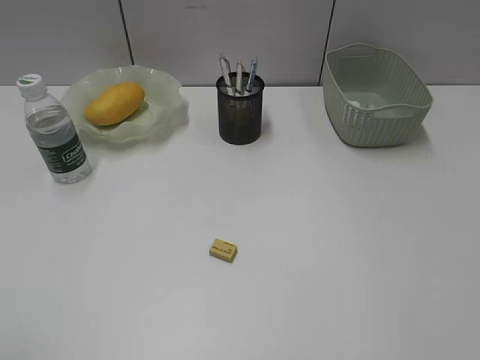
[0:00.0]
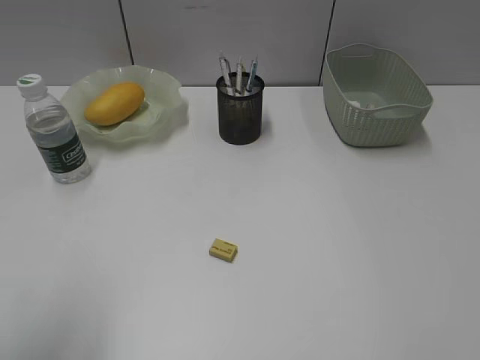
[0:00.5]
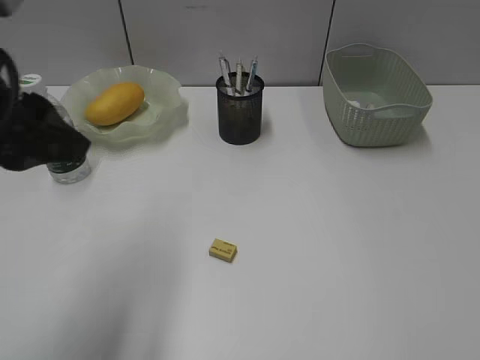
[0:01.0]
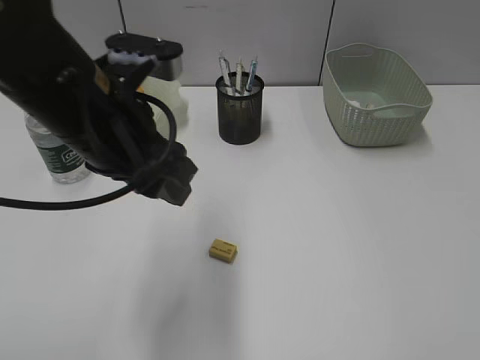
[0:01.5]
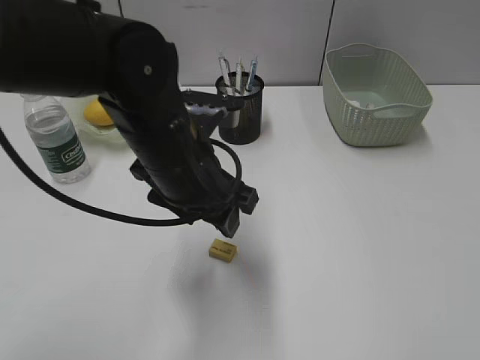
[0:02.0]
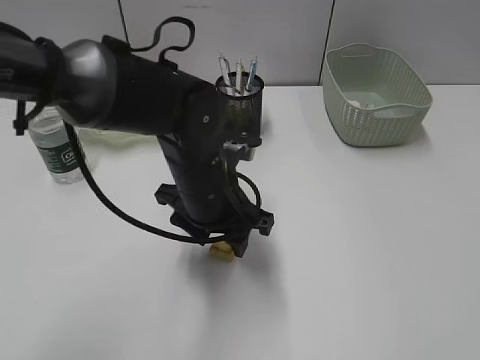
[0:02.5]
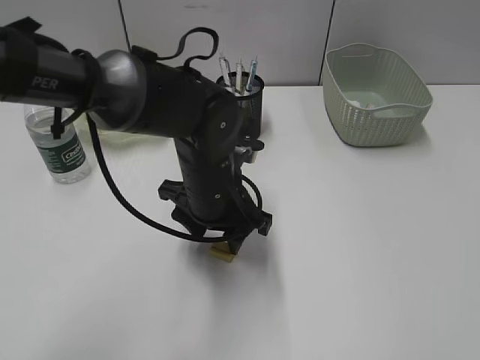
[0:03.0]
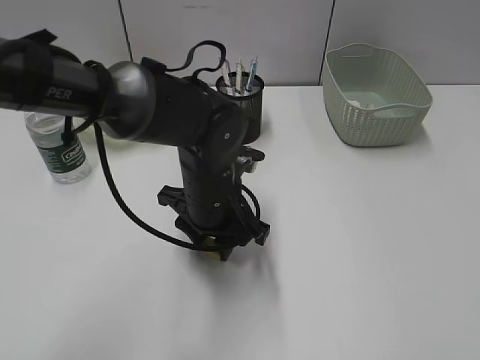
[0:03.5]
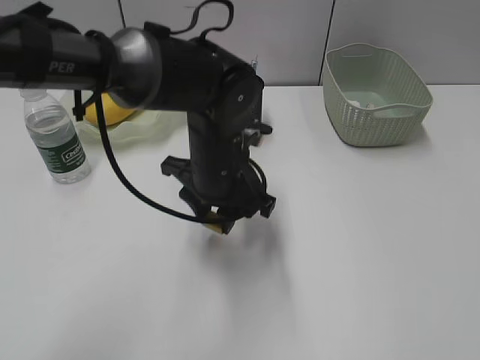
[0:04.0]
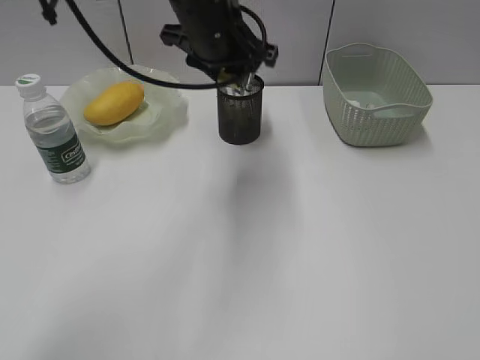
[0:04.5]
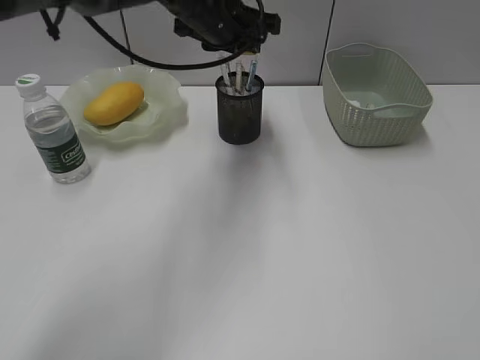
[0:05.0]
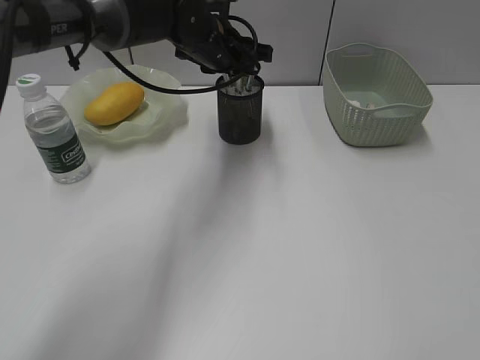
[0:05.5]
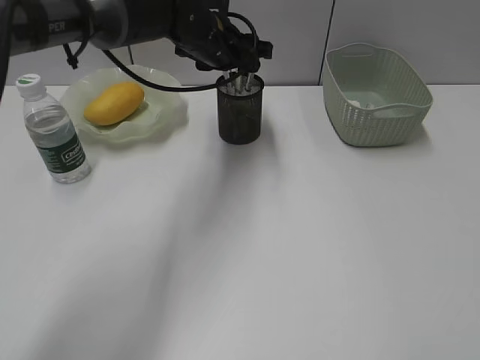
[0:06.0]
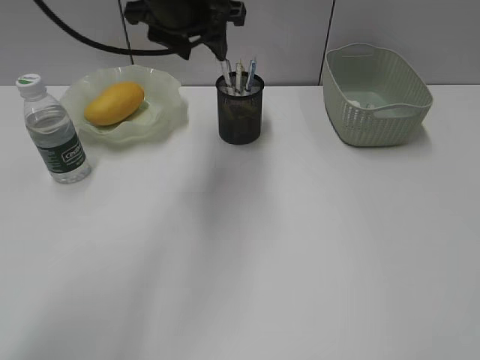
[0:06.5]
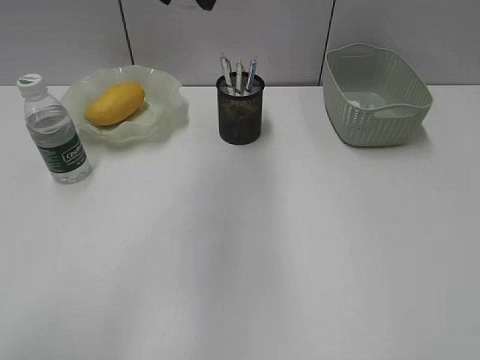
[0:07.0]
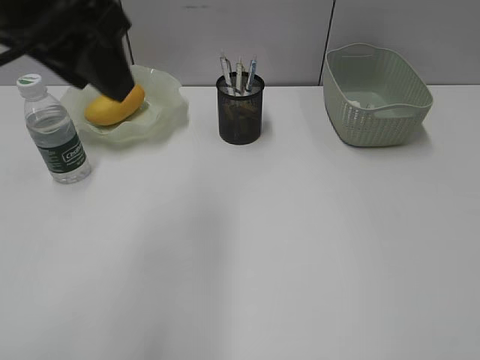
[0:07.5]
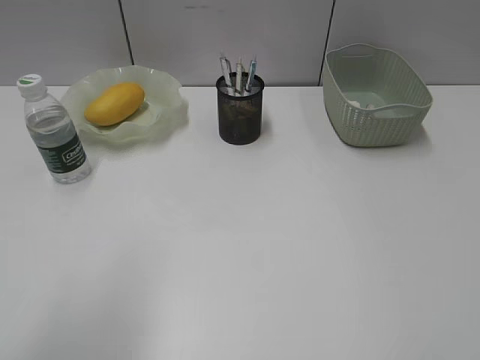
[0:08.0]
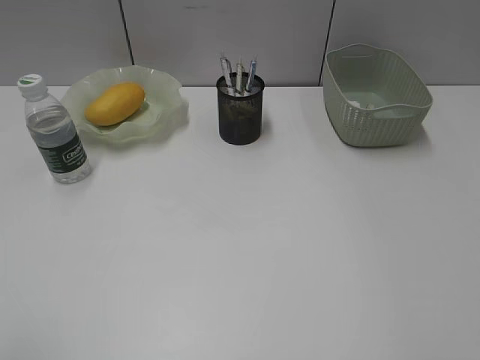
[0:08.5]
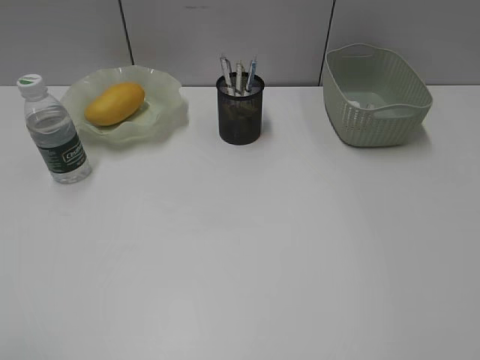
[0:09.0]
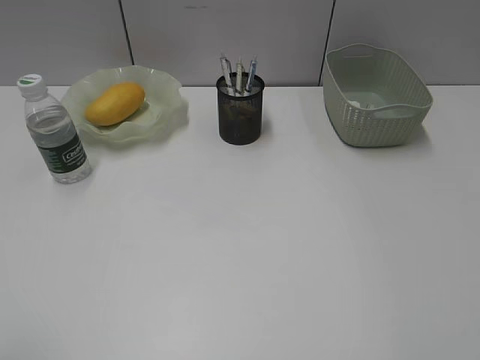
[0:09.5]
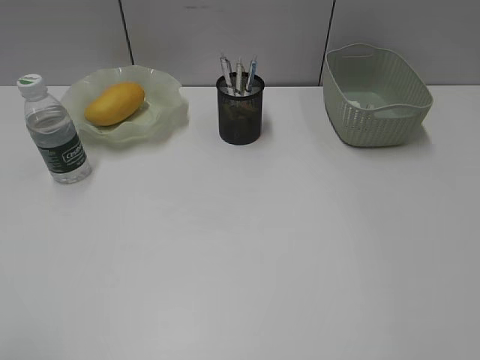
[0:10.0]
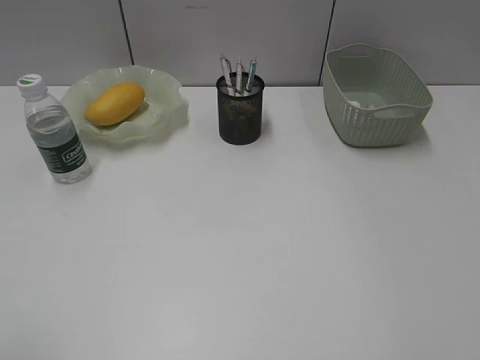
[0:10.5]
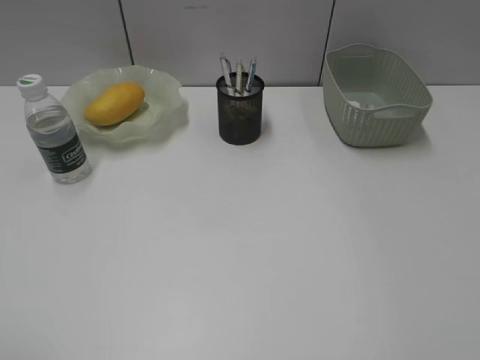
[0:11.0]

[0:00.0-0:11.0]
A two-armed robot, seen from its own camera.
Step, 0:00.0 to 0:03.5: Grasp the eraser with left gripper.
Step, 0:04.0 to 0:05.5: Place the eraser in pen holder with left gripper.
0:00.0 to 0:02.0: The left gripper is displaced to the right and forward by approximately 35 cm. The right gripper moves approximately 5 cm.
0:02.0 to 0:03.5: The left gripper travels downward by approximately 10 cm.
0:03.5 to 0:05.5: The left gripper travels forward and upward by about 20 cm.
0:05.5 to 0:07.5: The left gripper is displaced backward, upward and to the left by roughly 30 cm.
0:07.5 to 0:09.0: The left gripper is displaced backward and to the left by approximately 30 cm.

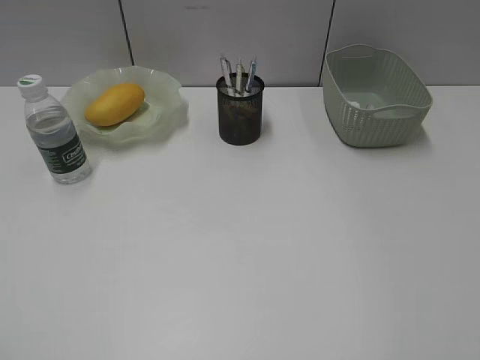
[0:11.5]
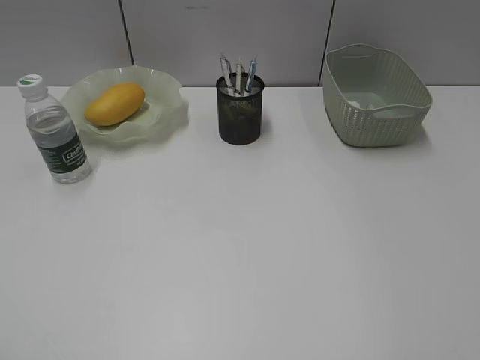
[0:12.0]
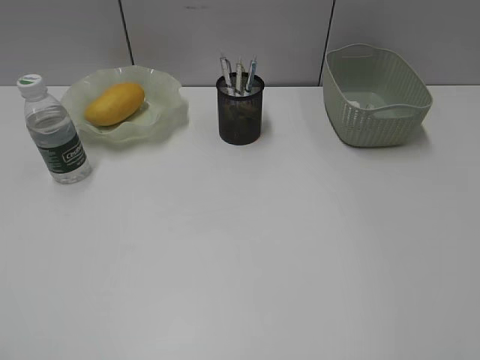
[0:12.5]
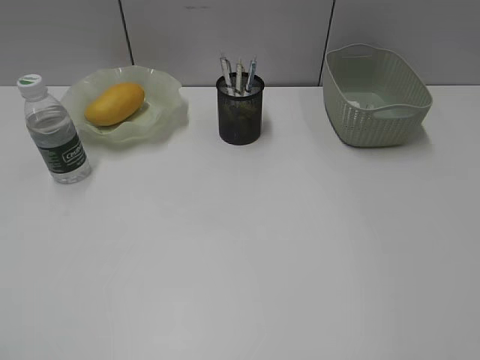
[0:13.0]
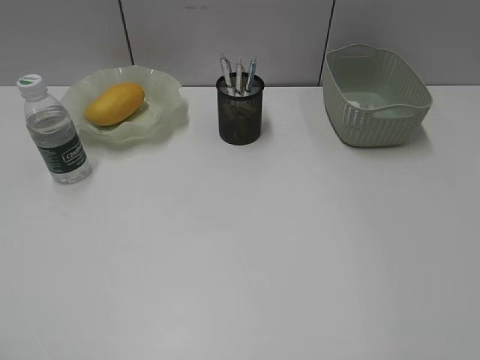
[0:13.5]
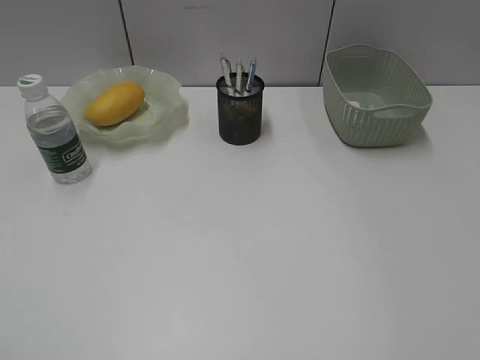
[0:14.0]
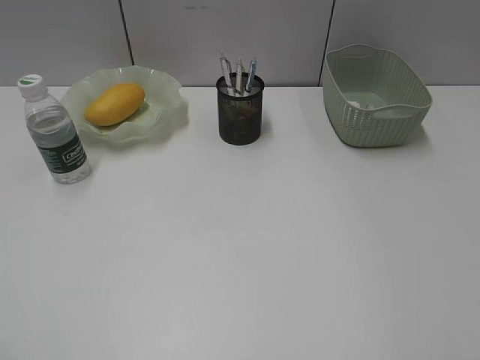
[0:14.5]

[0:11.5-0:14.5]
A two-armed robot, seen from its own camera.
0:11.5 to 0:14.5: Both grippers stay put.

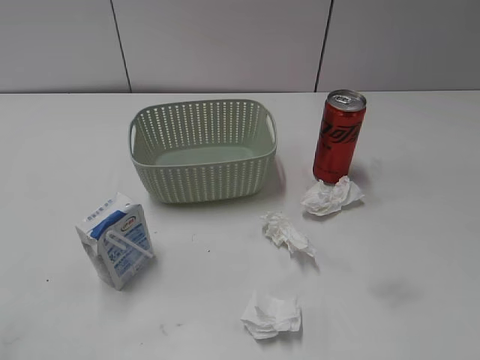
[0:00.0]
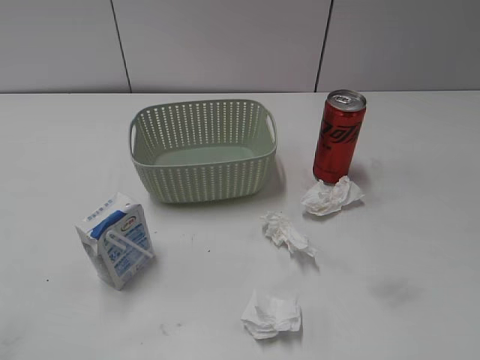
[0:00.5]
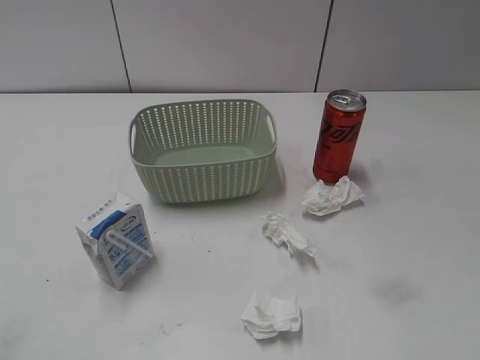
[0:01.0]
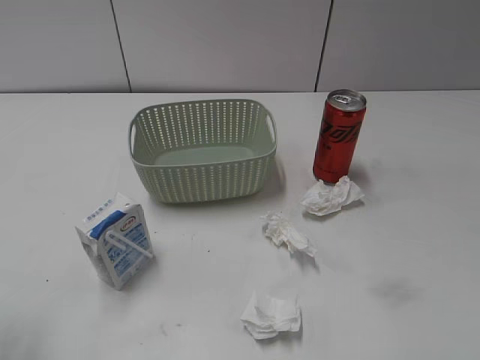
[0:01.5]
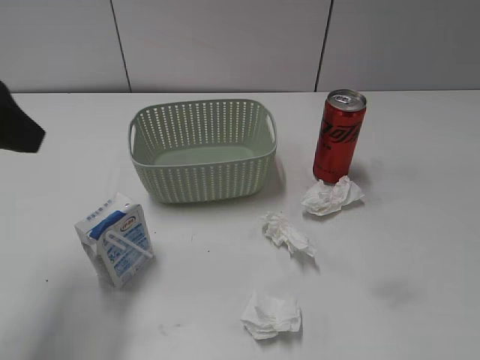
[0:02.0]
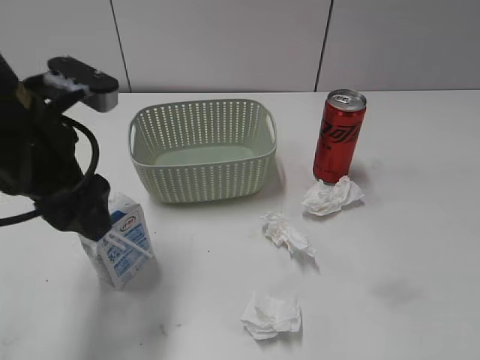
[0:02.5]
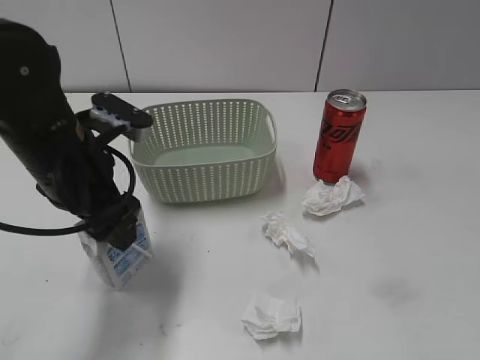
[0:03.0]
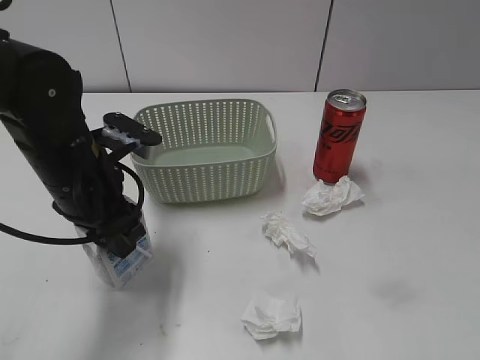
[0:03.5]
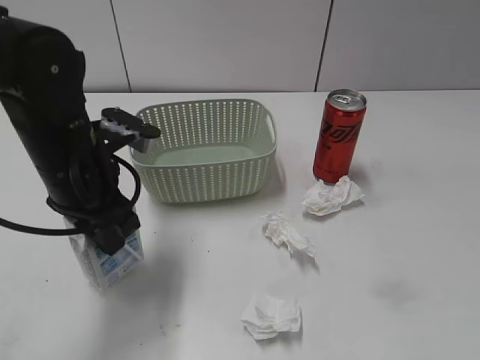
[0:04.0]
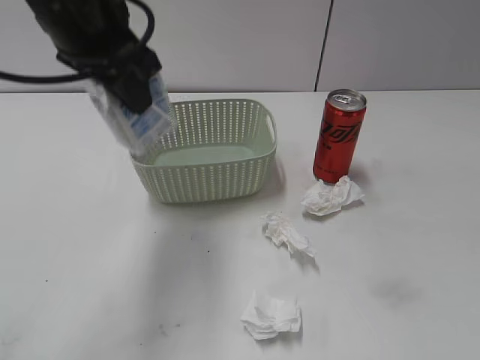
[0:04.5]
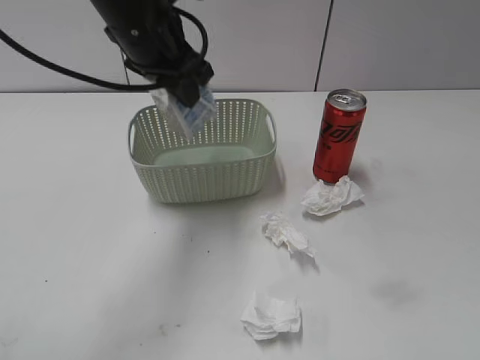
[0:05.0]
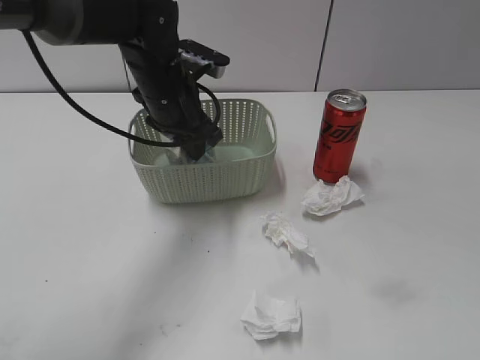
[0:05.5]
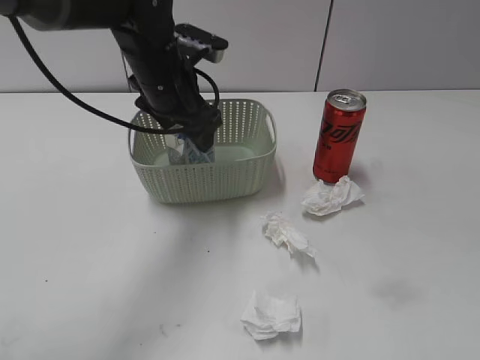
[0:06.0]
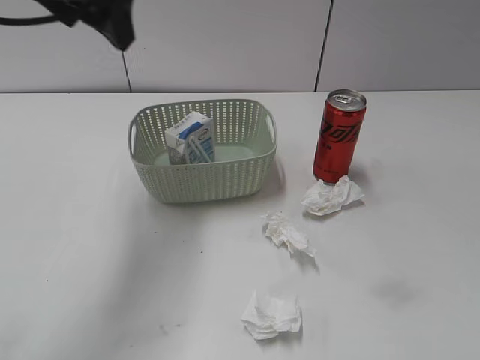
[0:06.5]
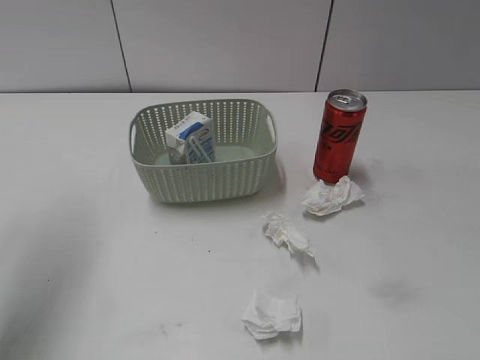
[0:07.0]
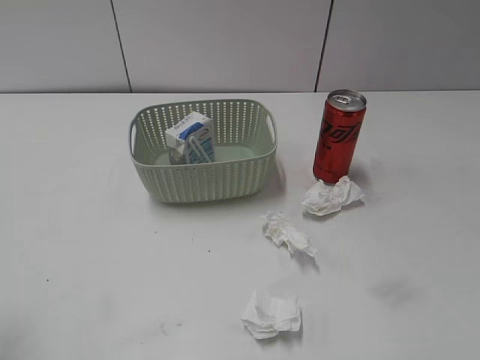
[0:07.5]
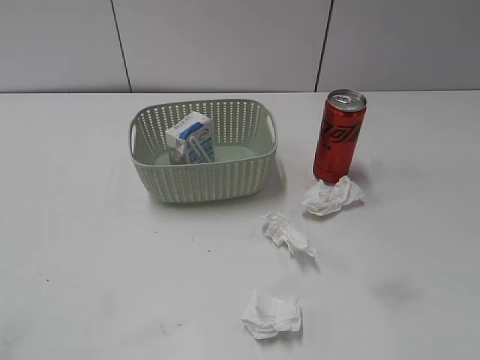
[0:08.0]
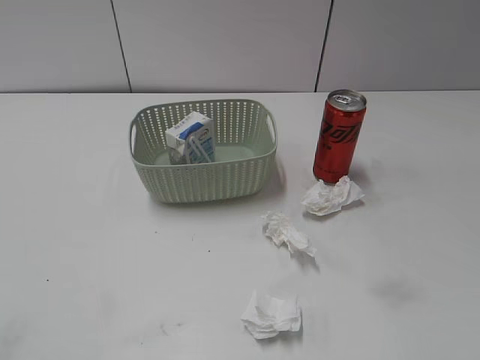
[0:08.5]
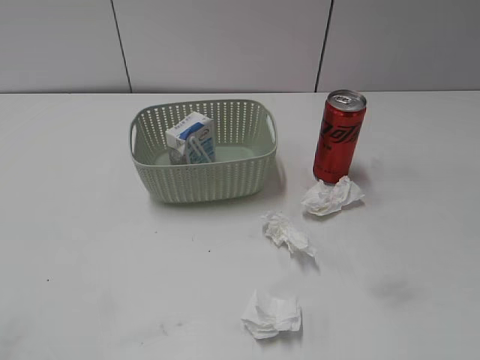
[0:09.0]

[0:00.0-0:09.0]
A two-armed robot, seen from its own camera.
Step, 0:02.0 to 0:03.5: Grasp the milk with left gripper.
Step, 0:04.0 to 0:06.0: Place the milk in the basket with left gripper.
0:02.0 to 0:04.5: The left gripper travels to the right and forward by roughly 15 cm, moves approximately 15 cm downward and comes back, and closes its fingers.
0:04.5 to 0:07.0: The left gripper goes approximately 15 cm to the left, and opens its fingers.
0:07.0 to 0:09.0: The left gripper moves backward, approximately 30 cm, and closes.
